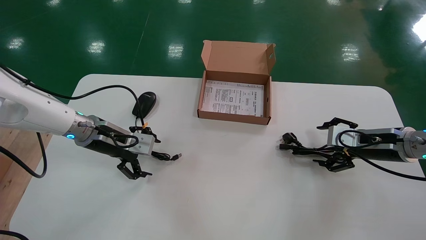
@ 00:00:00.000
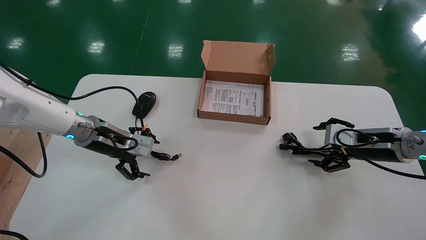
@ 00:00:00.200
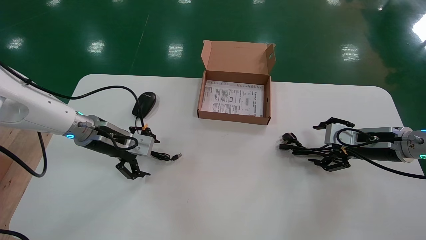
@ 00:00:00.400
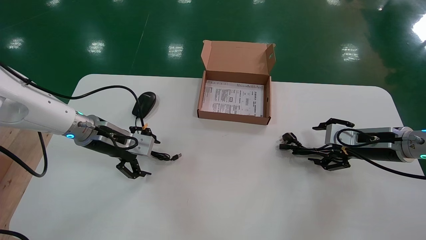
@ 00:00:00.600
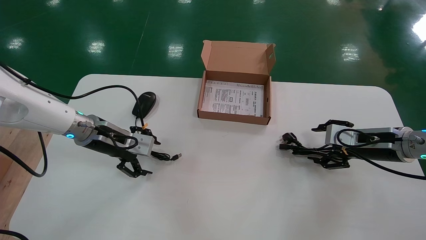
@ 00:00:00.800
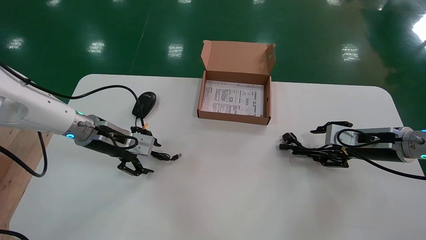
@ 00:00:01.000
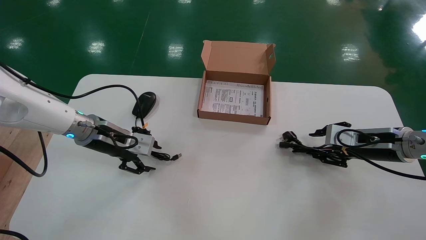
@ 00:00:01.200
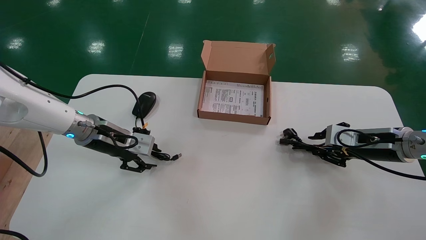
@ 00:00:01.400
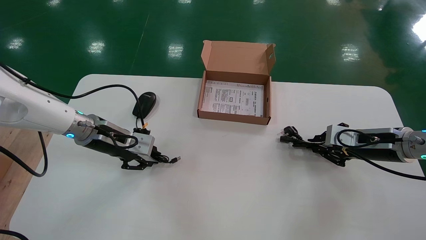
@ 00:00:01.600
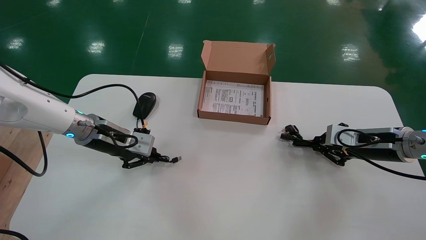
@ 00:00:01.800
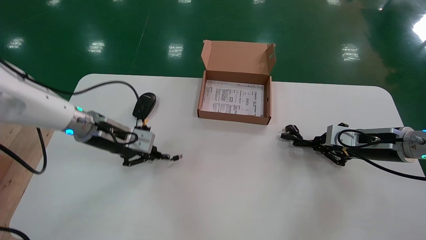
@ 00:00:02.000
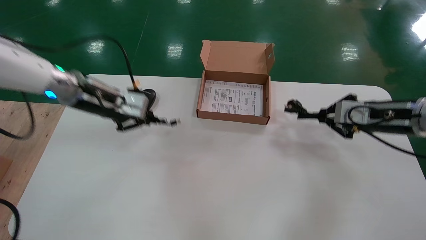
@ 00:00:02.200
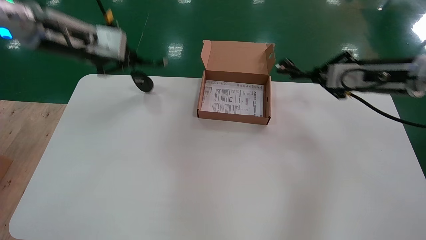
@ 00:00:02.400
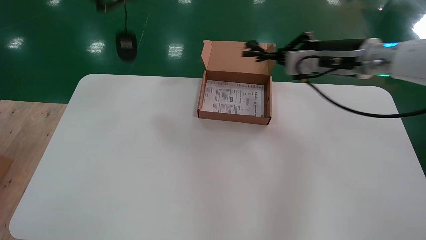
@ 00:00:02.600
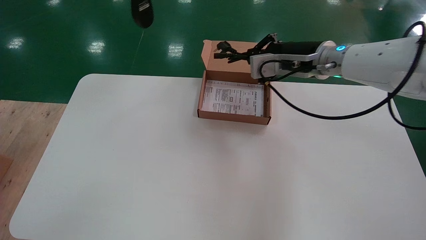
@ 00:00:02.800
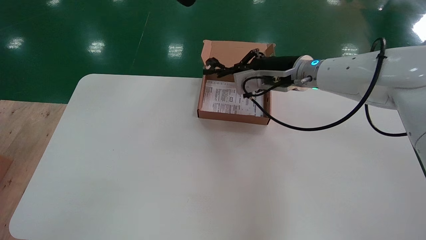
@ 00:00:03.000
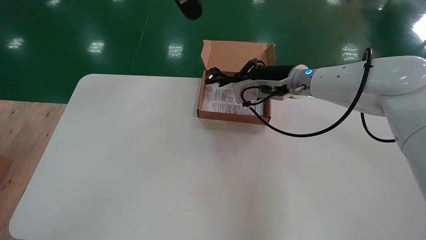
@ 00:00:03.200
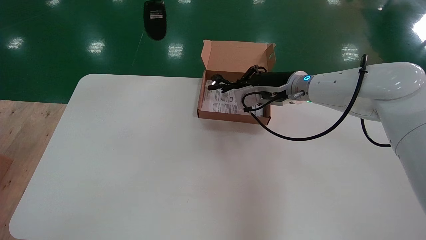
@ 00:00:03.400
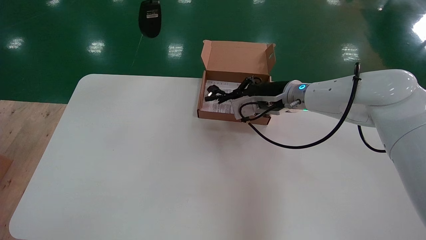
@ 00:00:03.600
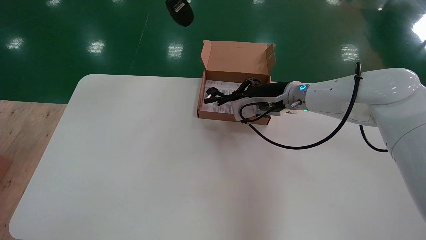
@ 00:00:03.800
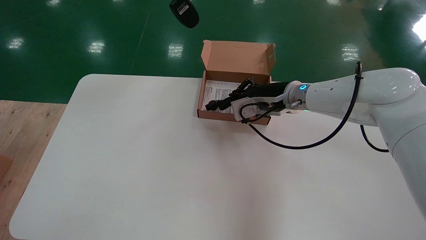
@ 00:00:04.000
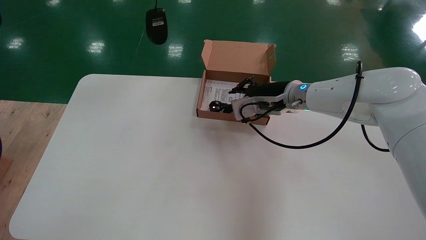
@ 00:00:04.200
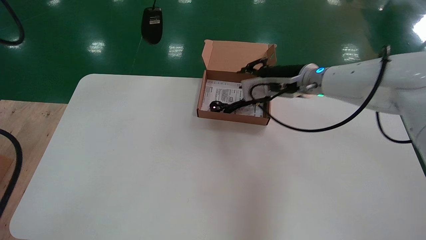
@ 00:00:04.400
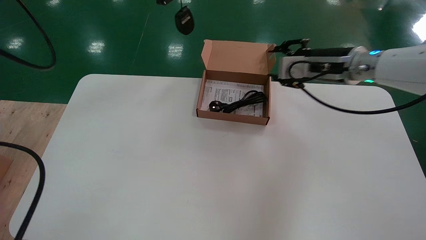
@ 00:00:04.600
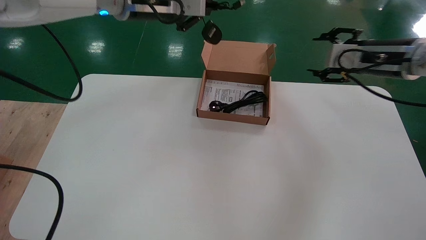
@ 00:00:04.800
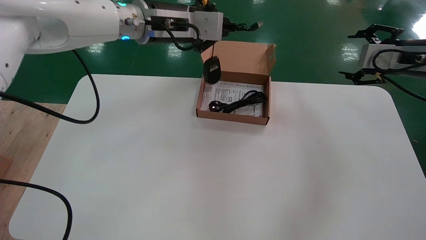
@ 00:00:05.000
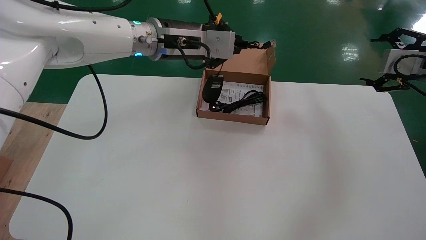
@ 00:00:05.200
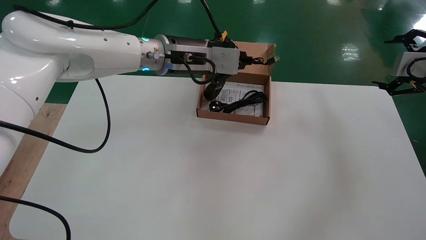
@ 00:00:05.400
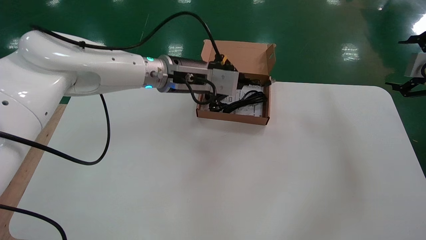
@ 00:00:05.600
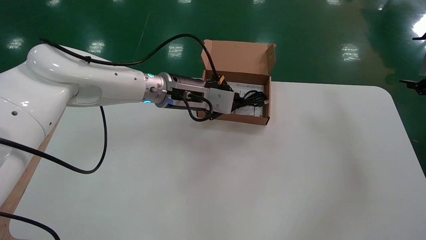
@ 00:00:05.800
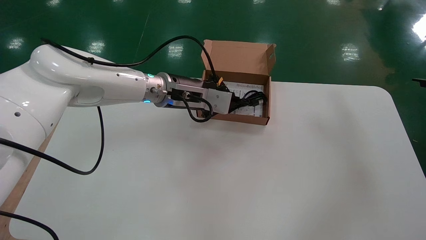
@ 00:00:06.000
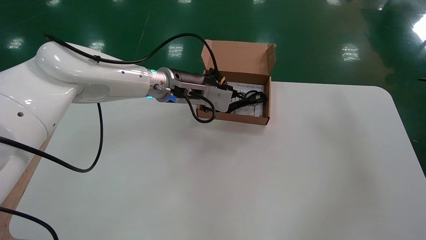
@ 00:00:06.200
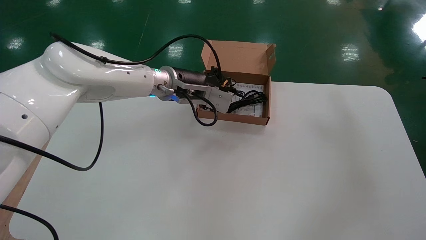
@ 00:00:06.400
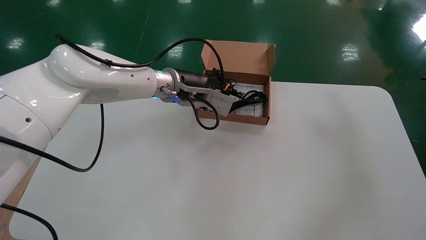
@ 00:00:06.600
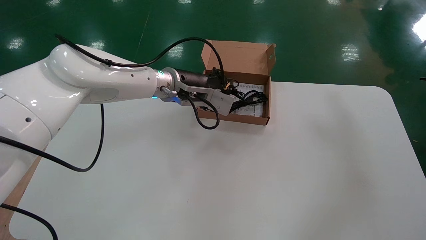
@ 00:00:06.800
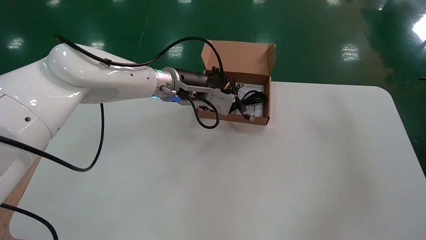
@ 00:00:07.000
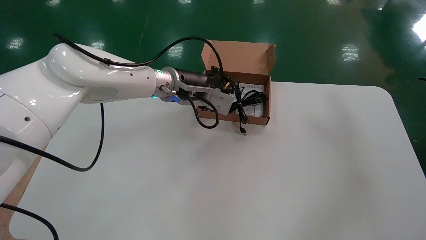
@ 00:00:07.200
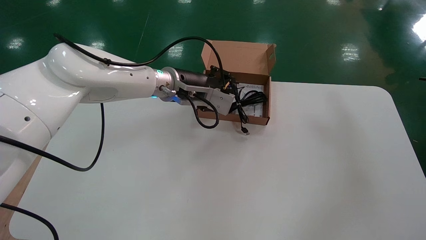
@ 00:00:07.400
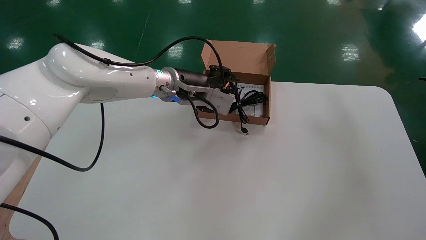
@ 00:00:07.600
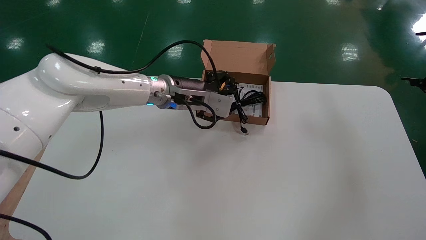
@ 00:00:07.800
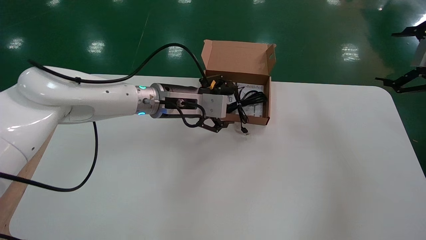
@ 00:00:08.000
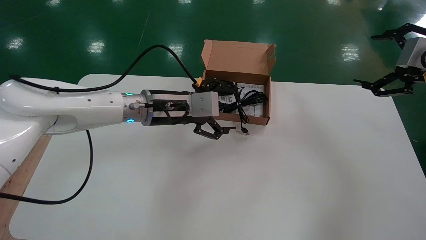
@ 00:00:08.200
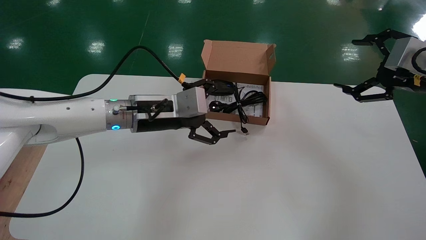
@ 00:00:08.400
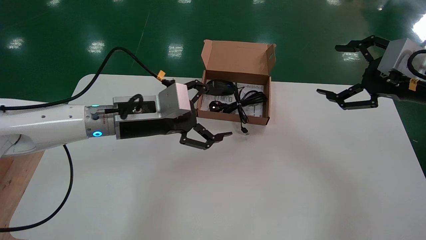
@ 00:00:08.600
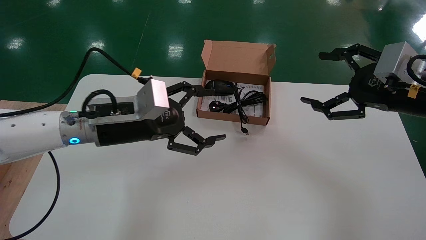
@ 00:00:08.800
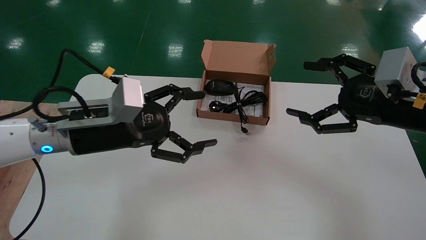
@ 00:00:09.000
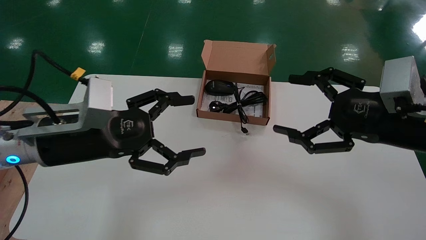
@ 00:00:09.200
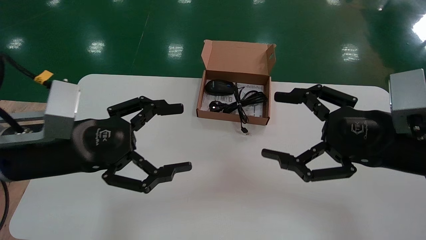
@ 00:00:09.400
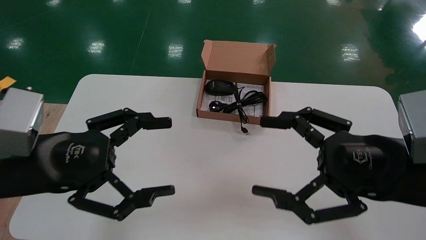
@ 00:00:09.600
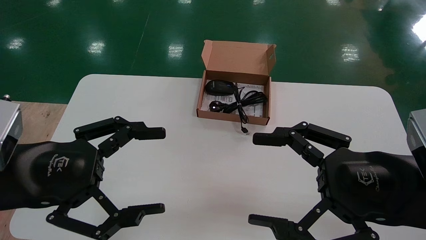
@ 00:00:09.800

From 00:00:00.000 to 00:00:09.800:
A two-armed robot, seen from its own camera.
Step, from 00:00:00.000 to 00:00:01.800: Simultaneously pick up the mouse and power cord from the accessory packaging area.
Step, from 00:00:02.000 to 00:00:07.400: Place the mouse and power cord into the box.
From 00:00:00.000 to 00:00:01.400: The right gripper closes, while the left gripper closes up.
From 00:00:01.400 to 00:00:02.800: The left gripper goes roughly 35 cm upward, and closes up. Meanwhile the right gripper goes about 20 cm to the left and upward, and closes.
From 00:00:02.800 to 00:00:04.200: The right gripper goes approximately 5 cm downward.
From 00:00:04.200 to 00:00:05.600: The left gripper travels downward and to the right by about 25 cm, while the right gripper shifts roughly 30 cm to the right, and opens up.
From 00:00:05.600 to 00:00:07.000: The right gripper shifts by approximately 5 cm.
From 00:00:07.000 to 00:00:08.400: The left gripper is displaced backward and to the left by approximately 10 cm, and opens up, while the right gripper moves to the left, approximately 10 cm.
From 00:00:08.400 to 00:00:09.800: The left gripper is displaced backward and to the left by roughly 25 cm. Meanwhile the right gripper travels backward, to the left and downward by about 20 cm.

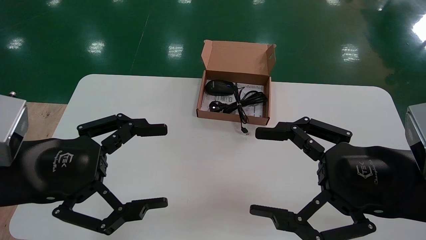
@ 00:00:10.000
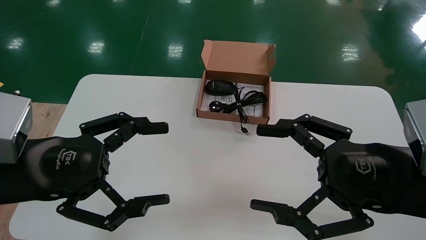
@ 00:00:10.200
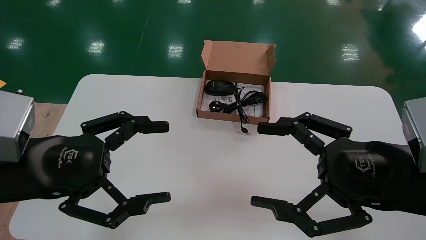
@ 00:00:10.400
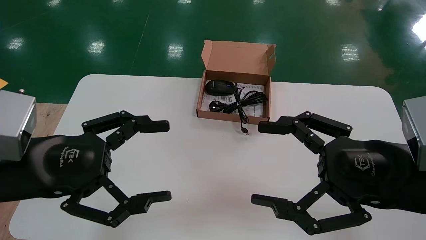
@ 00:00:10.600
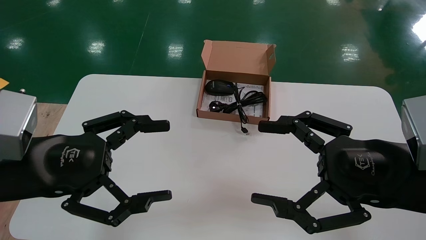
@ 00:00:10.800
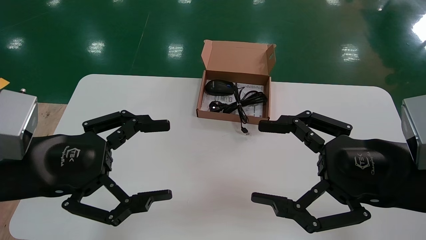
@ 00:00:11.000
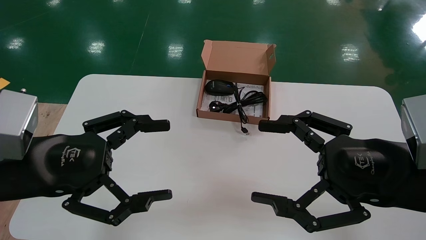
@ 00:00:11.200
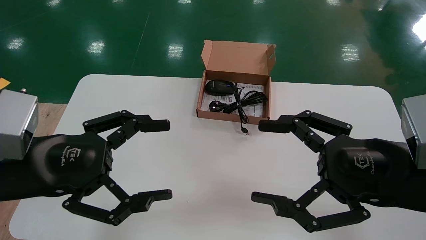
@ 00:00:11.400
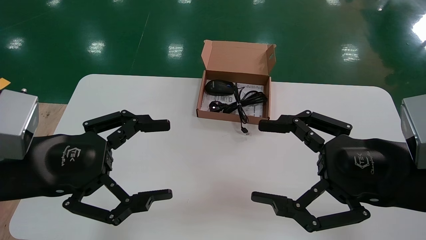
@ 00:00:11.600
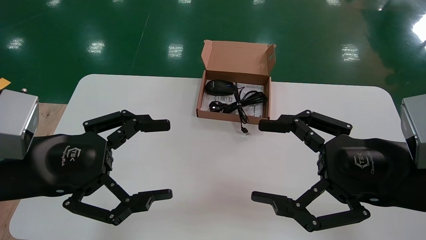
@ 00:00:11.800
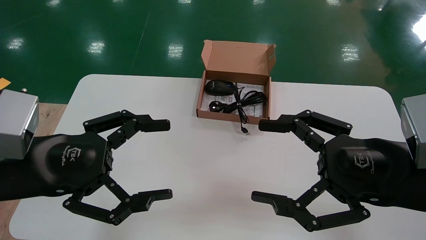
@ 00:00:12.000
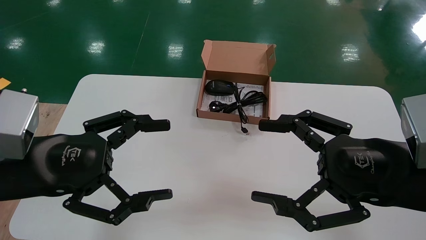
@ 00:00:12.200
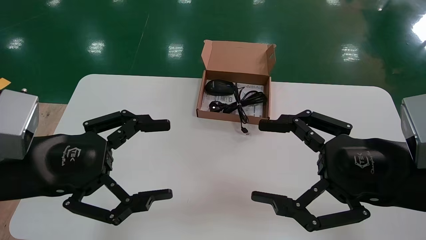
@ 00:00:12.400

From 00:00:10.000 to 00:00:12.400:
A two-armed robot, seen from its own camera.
From 00:00:10.000 to 00:00:12.400: Both grippers stay about where they are.
